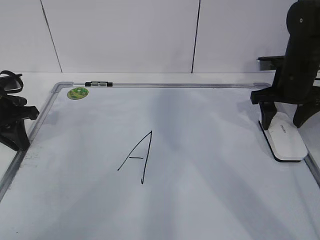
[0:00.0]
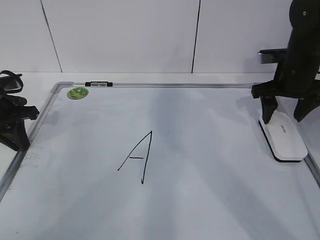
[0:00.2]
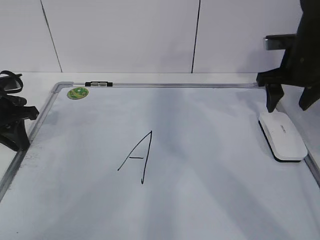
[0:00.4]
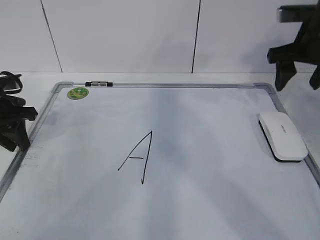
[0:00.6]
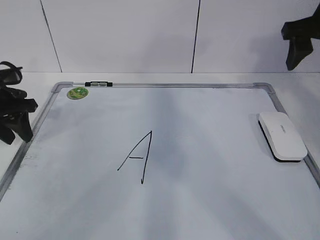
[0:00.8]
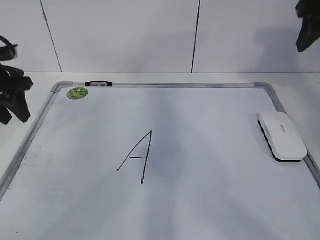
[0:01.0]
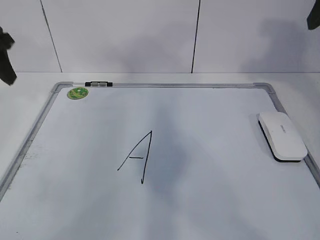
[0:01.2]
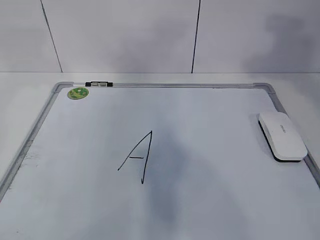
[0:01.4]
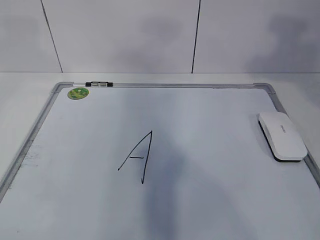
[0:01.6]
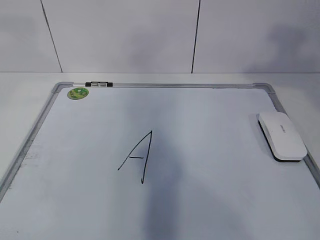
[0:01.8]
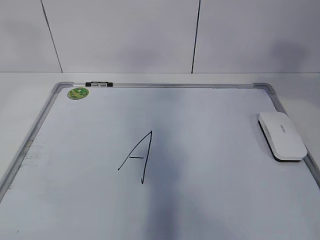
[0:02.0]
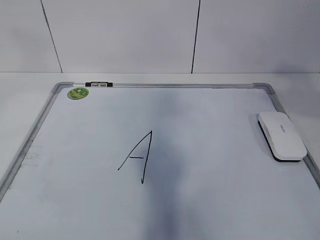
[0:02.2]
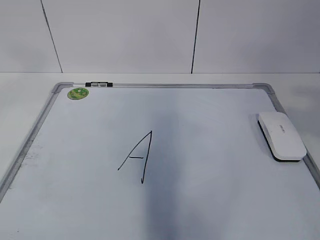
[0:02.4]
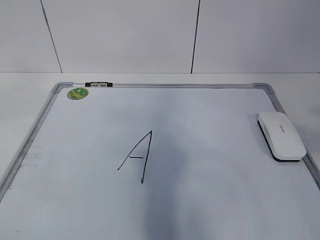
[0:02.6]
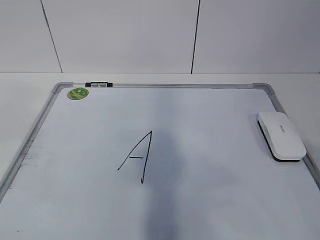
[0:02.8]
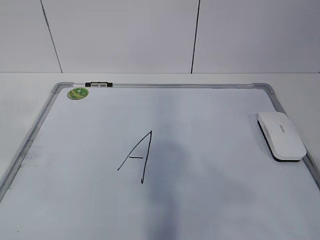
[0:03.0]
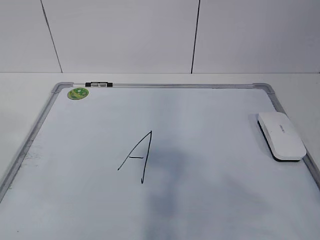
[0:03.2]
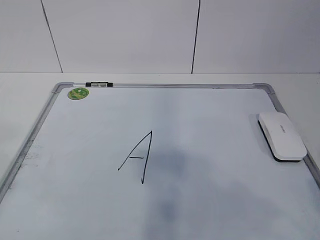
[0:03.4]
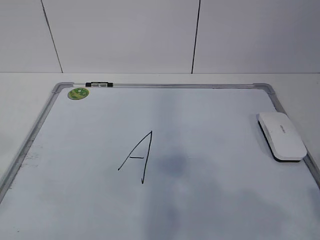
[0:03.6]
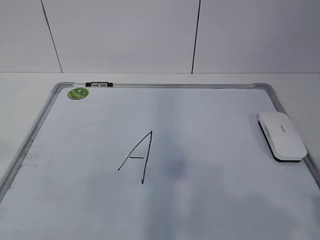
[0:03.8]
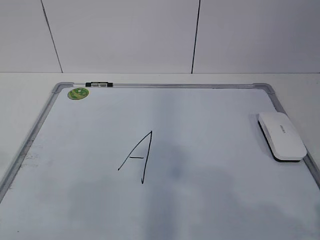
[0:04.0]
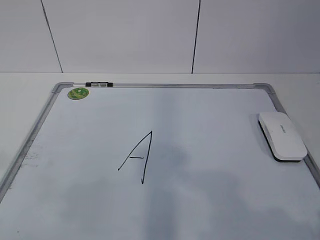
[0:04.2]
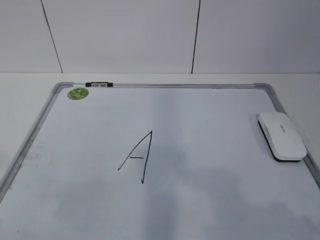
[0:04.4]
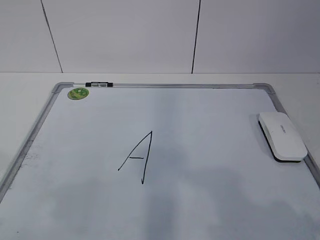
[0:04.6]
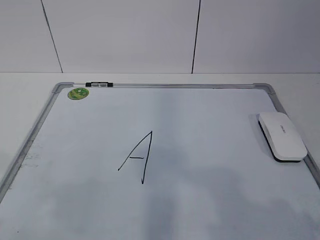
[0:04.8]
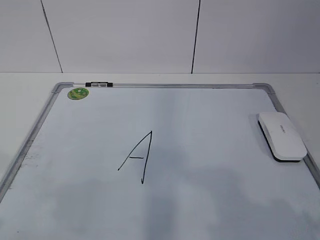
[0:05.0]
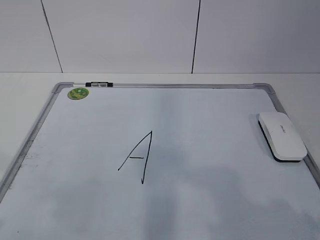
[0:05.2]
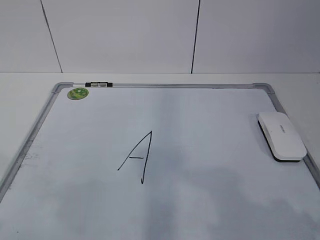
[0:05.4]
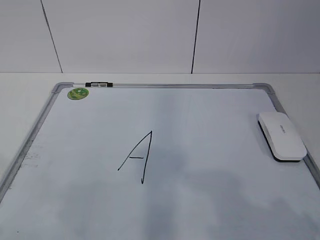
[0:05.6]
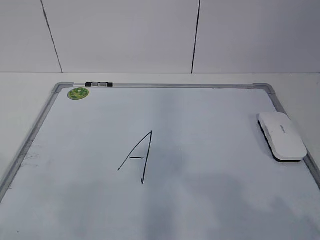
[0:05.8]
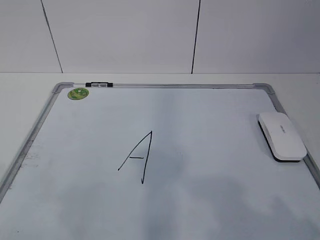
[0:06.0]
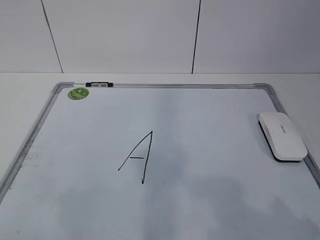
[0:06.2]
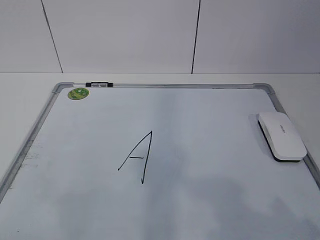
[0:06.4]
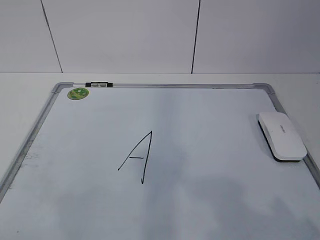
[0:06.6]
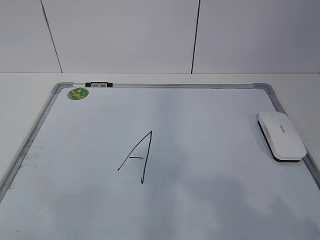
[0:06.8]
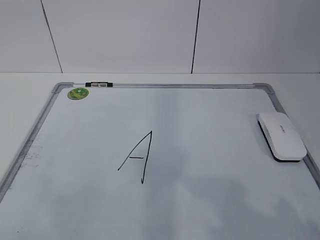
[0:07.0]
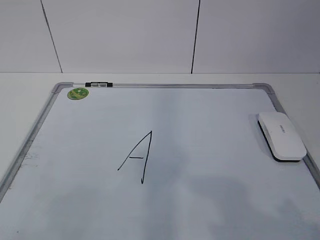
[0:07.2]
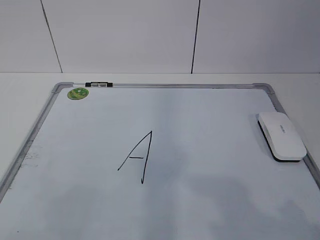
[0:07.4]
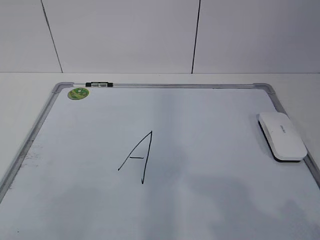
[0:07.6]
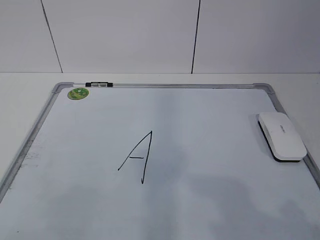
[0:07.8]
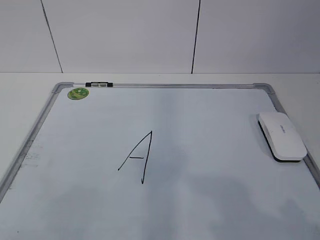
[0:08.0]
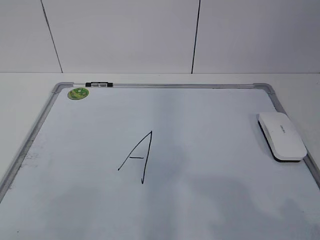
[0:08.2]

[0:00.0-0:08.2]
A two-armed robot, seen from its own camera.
Task of the whole recording: pick up the eraser on the blackboard and erase the letter "a".
0:00.0 to 0:01.6: The left gripper goes roughly 30 cm upward, and opens its fingers, while the right gripper goes some 30 cm upward and backward.
0:01.6 to 0:03.2: Both grippers travel together backward, approximately 25 cm.
0:03.2 to 0:05.0: The right gripper travels downward by some 10 cm.

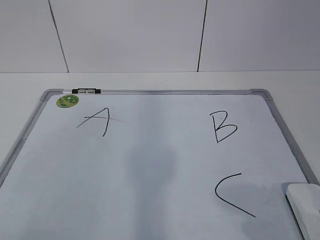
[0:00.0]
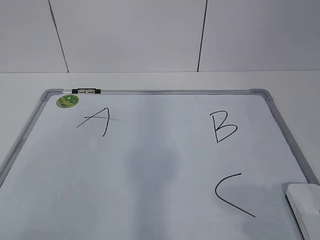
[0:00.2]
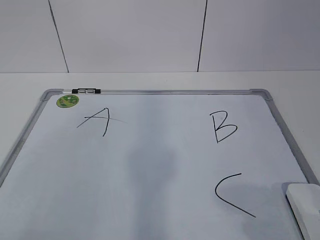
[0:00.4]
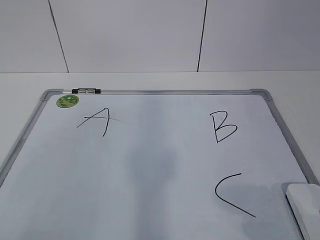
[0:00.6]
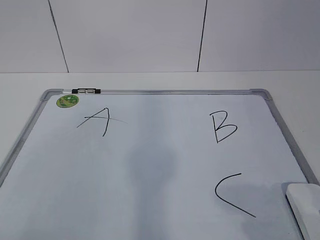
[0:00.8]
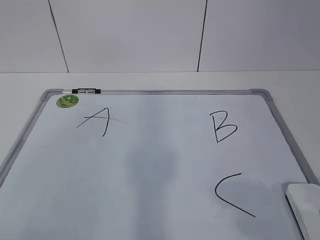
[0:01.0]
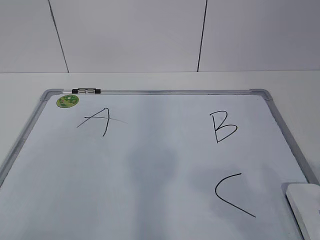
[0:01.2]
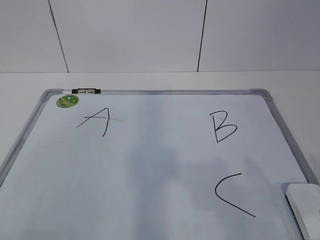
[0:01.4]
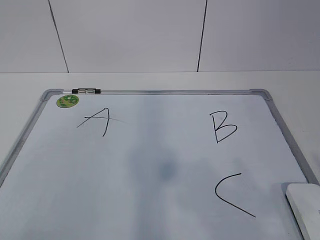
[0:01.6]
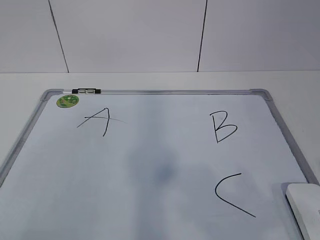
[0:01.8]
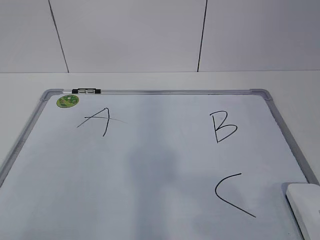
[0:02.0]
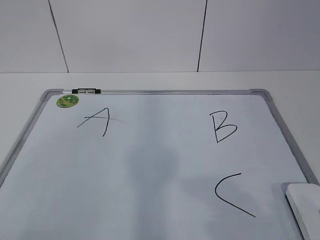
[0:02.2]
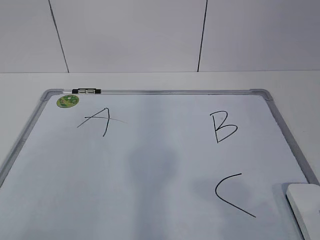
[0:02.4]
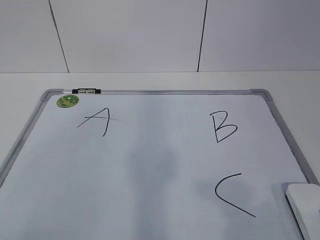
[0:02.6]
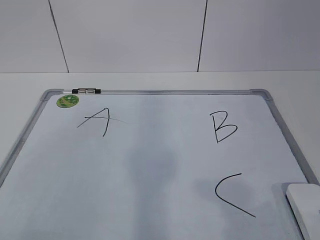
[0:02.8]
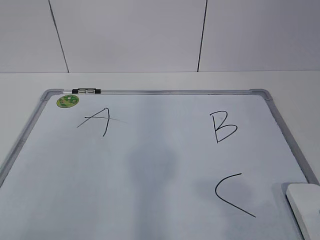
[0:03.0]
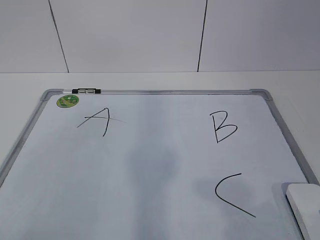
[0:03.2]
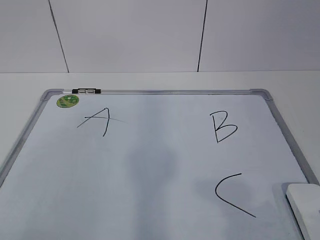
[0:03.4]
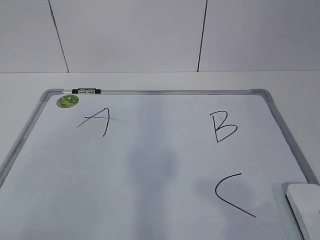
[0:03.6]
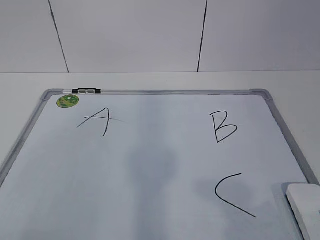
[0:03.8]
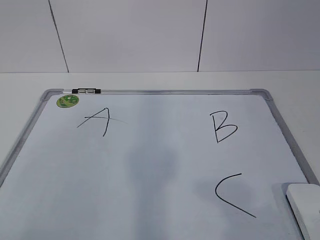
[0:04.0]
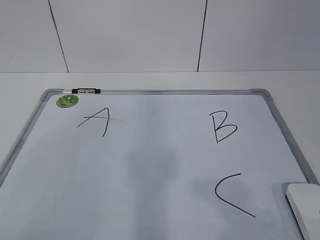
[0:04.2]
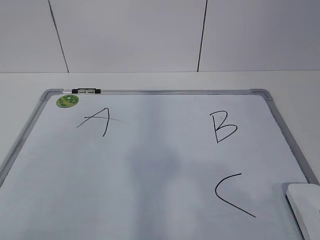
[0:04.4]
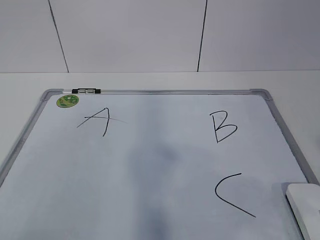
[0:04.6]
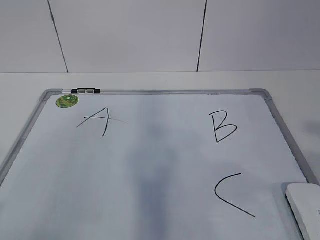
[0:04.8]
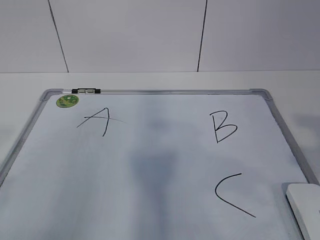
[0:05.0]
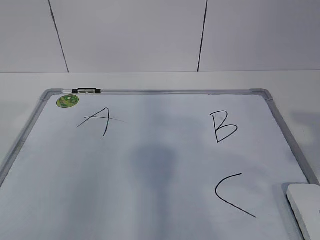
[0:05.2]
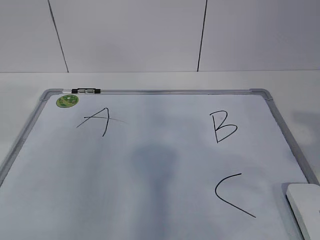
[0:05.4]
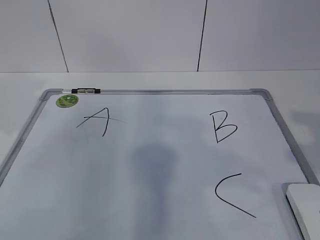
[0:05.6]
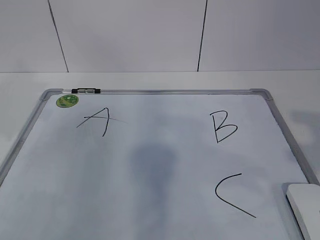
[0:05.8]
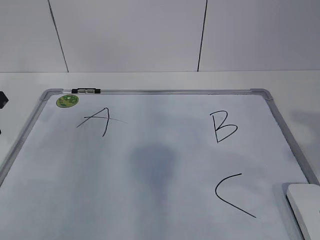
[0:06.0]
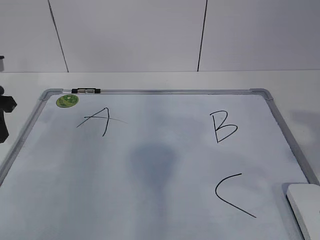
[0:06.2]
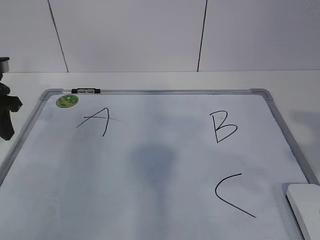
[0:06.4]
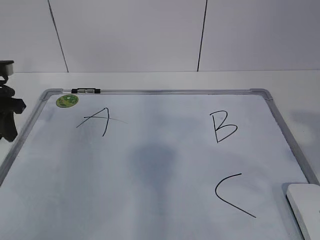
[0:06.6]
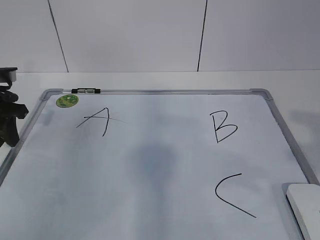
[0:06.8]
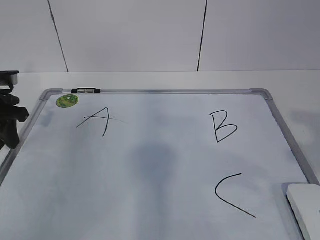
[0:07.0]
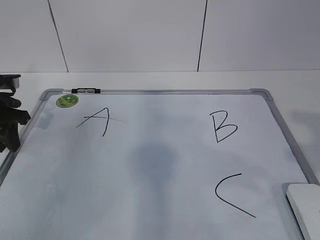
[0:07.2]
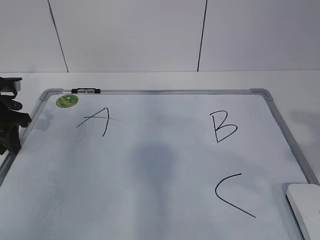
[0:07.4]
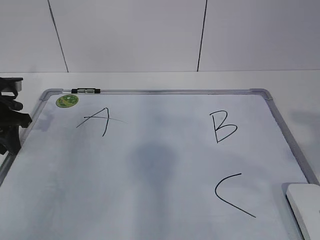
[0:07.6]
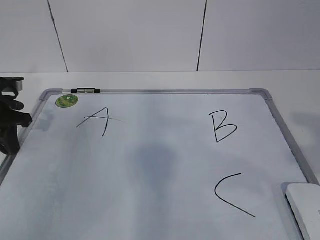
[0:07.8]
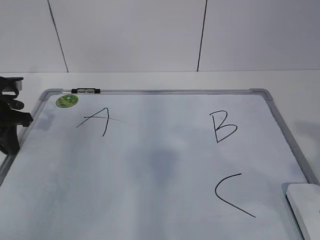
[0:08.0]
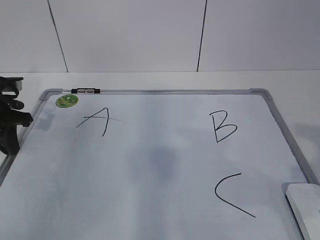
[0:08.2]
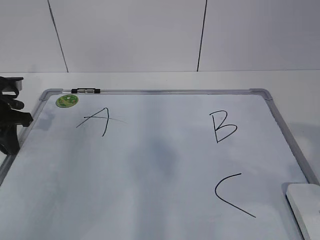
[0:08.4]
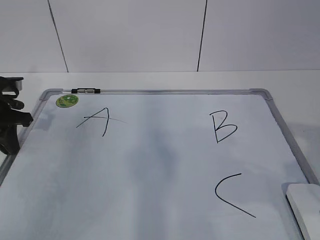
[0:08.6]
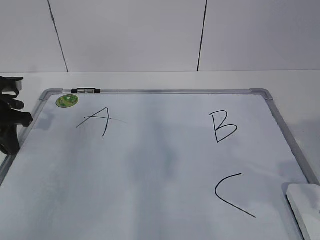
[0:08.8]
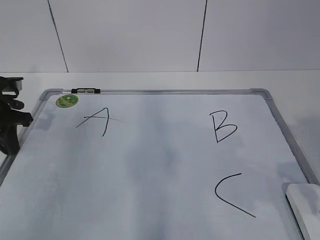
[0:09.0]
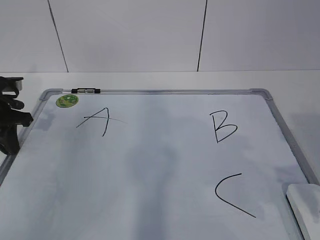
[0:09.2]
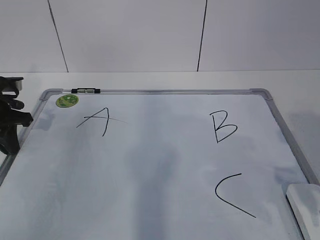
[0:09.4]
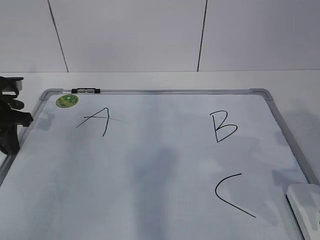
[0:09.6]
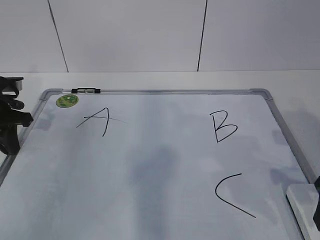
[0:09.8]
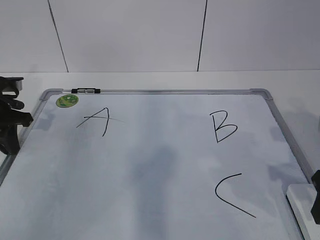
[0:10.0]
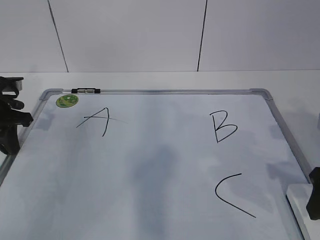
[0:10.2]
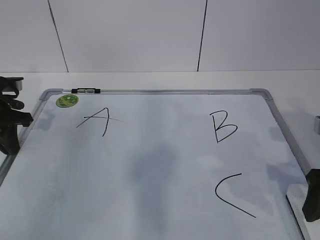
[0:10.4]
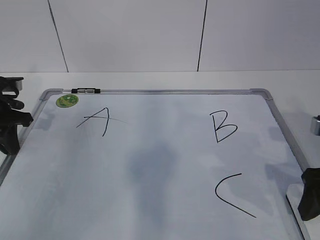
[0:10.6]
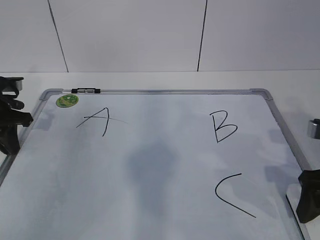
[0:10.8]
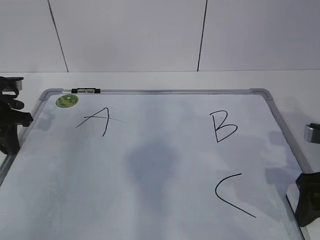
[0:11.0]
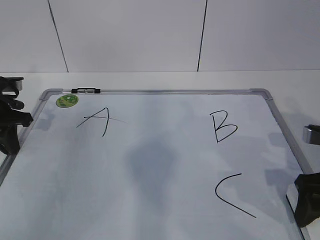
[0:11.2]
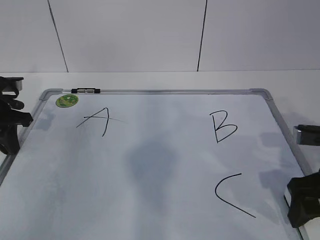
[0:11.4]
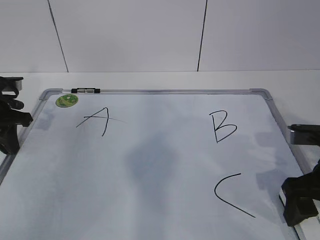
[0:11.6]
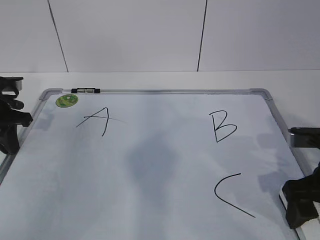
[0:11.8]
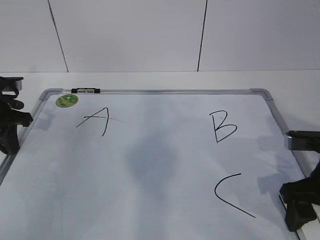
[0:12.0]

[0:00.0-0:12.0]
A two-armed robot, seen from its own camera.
Task of the whole recording: pick up the eraser on the blackboard and erase the letter "B".
0:04.4 to 0:06.0: The left gripper heads forward, covering approximately 30 cm.
0:06.0 to 0:07.6: The left gripper moves downward and forward, approximately 10 cm.
0:09.0 to 0:10.4: The right gripper shifts roughly 10 cm downward and forward, and closes and opens again.
0:10.4 to 0:12.0: The grippers make only small movements.

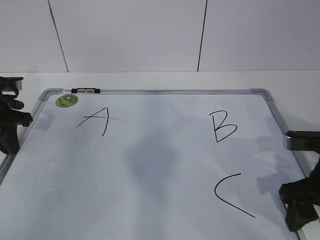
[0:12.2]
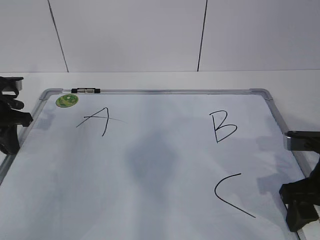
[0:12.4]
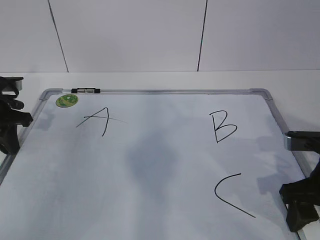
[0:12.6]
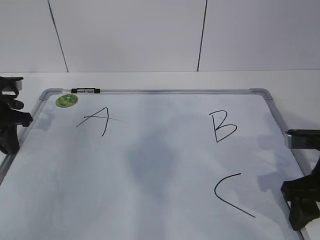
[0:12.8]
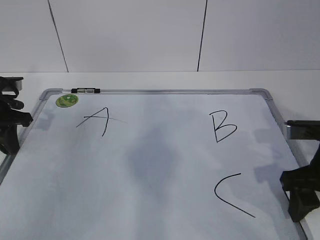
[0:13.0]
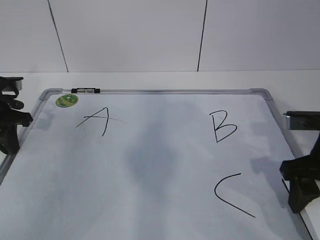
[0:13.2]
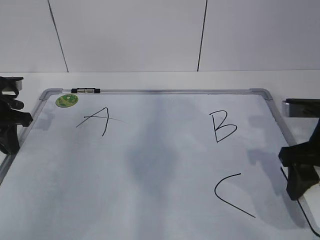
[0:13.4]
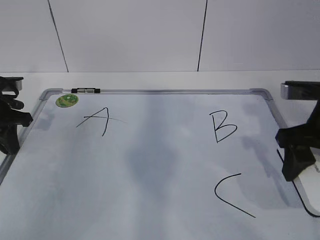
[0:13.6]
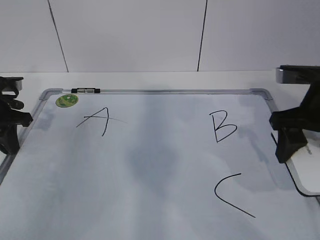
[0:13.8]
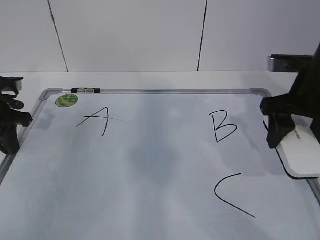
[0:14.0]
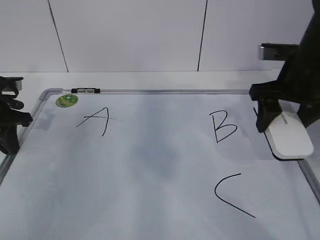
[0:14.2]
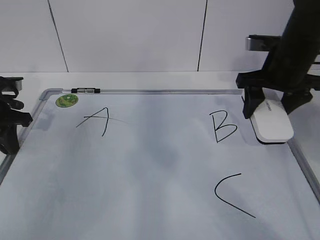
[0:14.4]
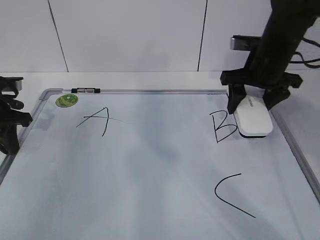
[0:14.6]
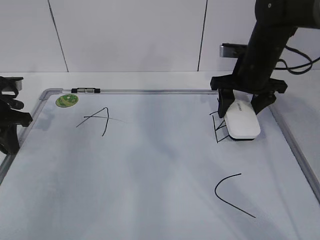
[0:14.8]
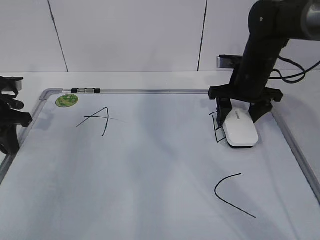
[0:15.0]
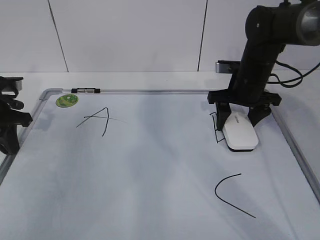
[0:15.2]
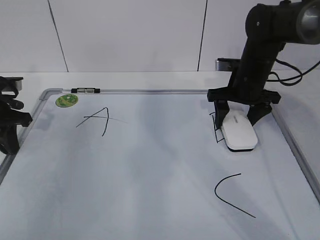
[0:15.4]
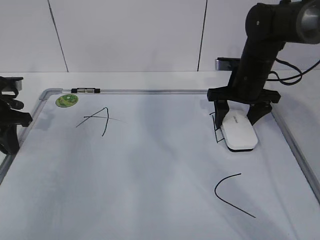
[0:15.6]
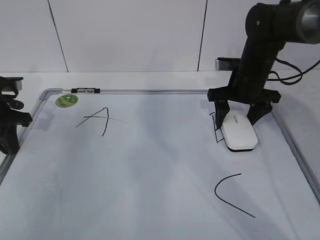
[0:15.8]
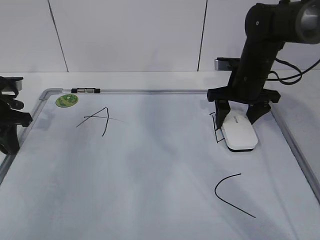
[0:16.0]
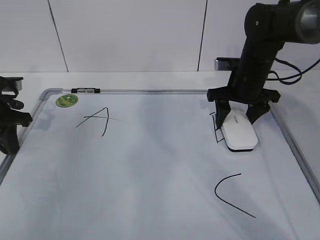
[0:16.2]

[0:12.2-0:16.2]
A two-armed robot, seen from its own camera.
Task of the whole recording: pick up the eraser on the blackboard and erase the letter "B".
0:12.2 to 0:13.6: The right gripper shifts some 5 cm upward.
0:13.6 to 0:14.8: The right gripper travels forward by about 15 cm.
0:14.8 to 0:16.2: The right gripper opens, then closes once more.
